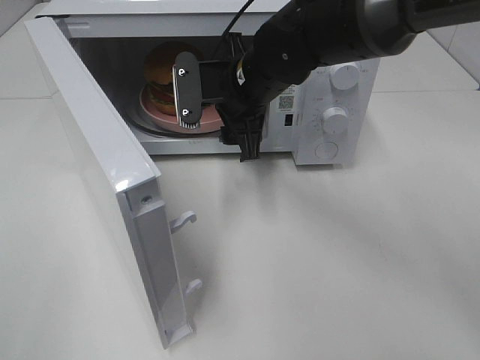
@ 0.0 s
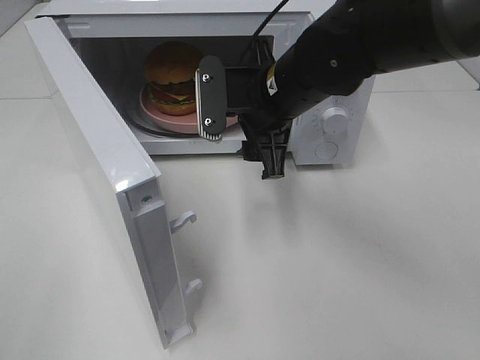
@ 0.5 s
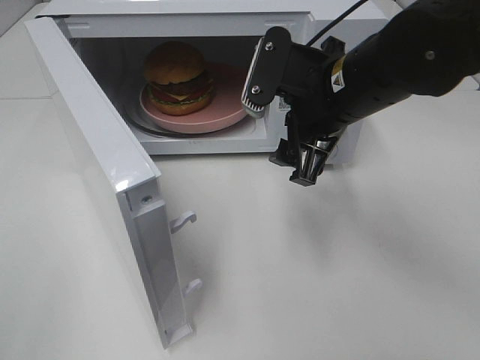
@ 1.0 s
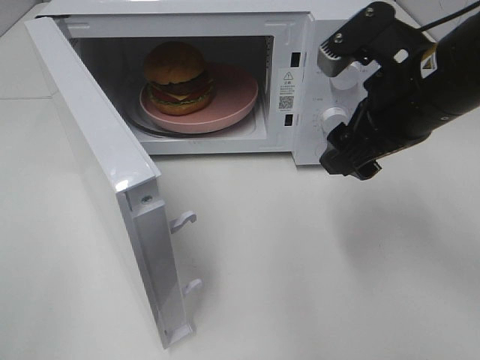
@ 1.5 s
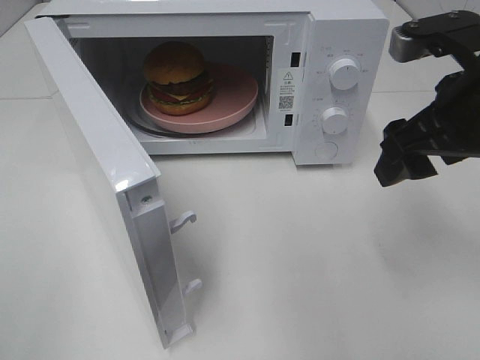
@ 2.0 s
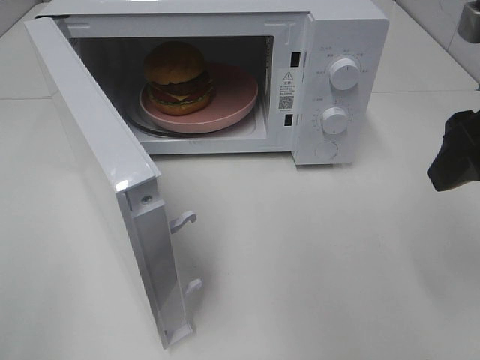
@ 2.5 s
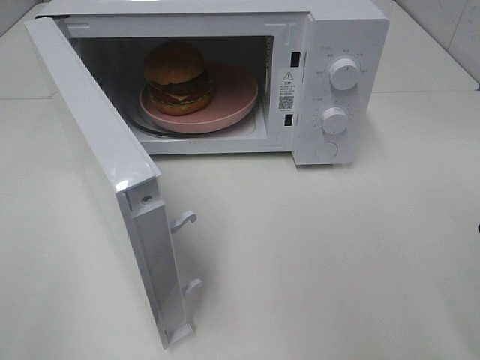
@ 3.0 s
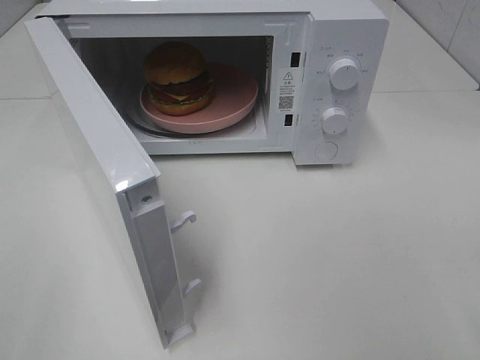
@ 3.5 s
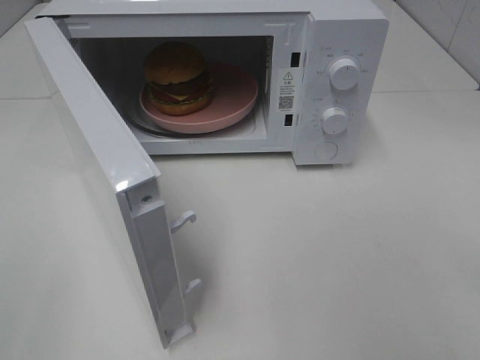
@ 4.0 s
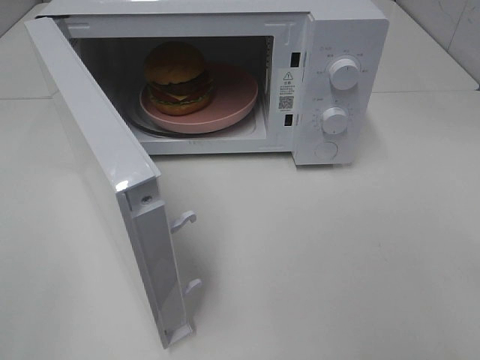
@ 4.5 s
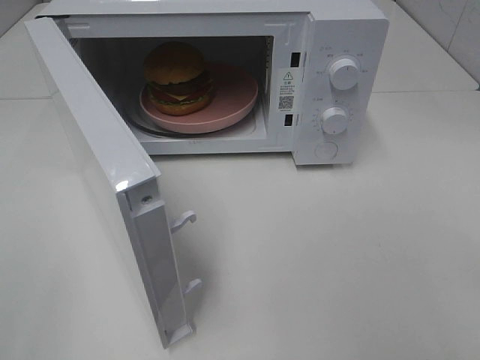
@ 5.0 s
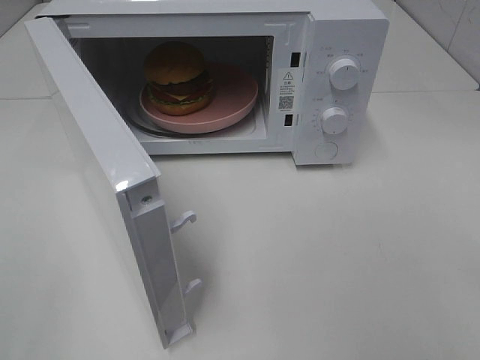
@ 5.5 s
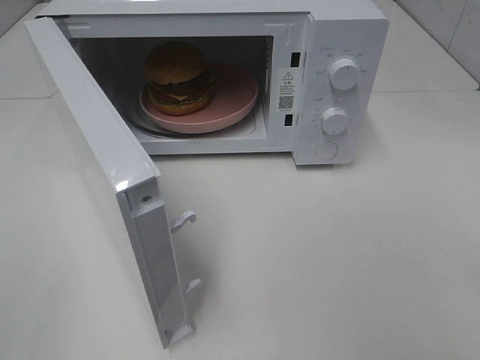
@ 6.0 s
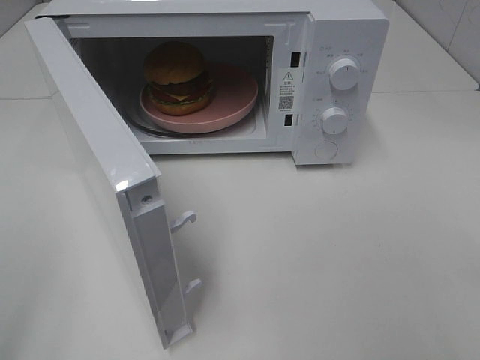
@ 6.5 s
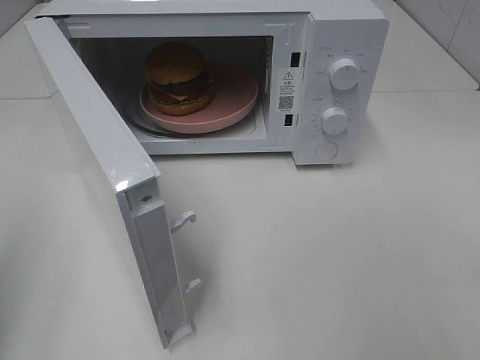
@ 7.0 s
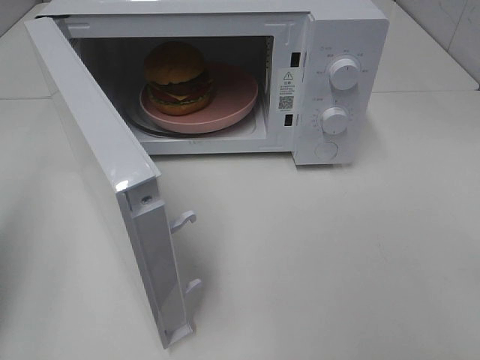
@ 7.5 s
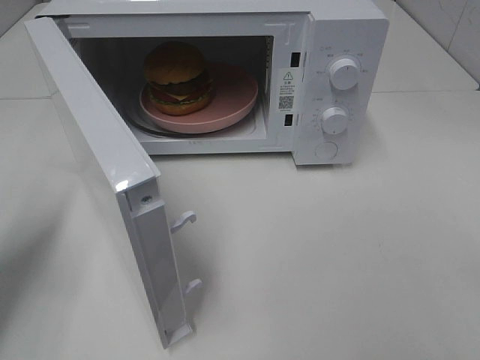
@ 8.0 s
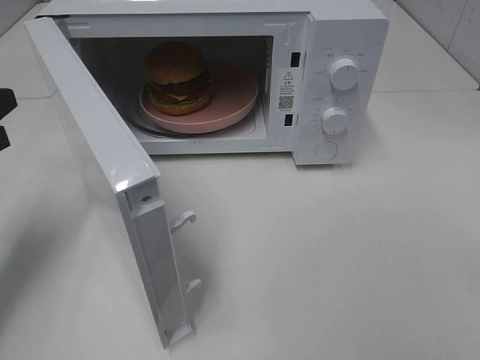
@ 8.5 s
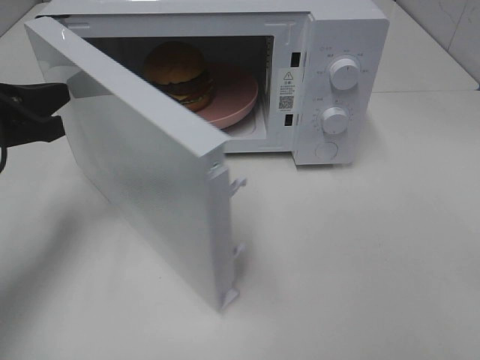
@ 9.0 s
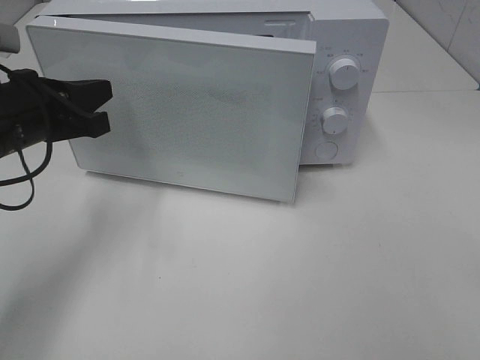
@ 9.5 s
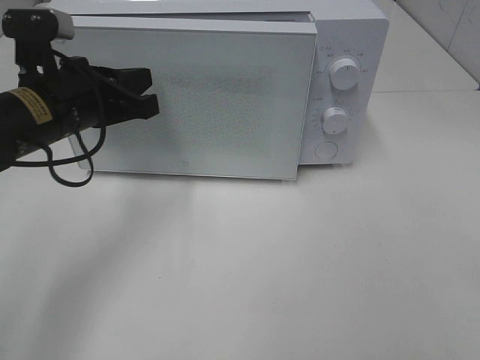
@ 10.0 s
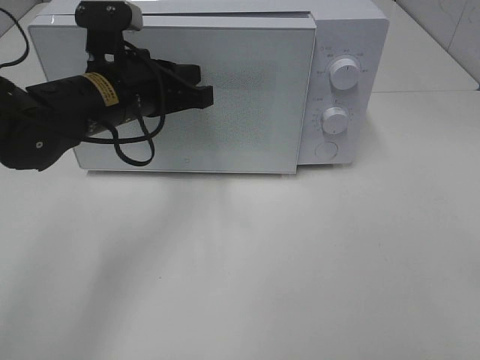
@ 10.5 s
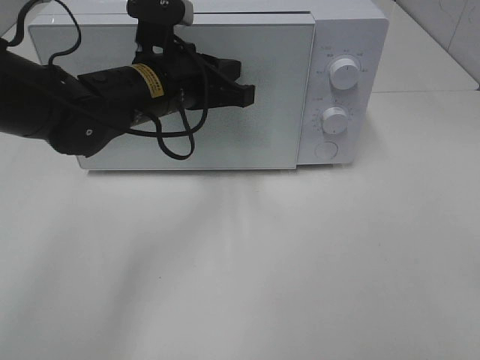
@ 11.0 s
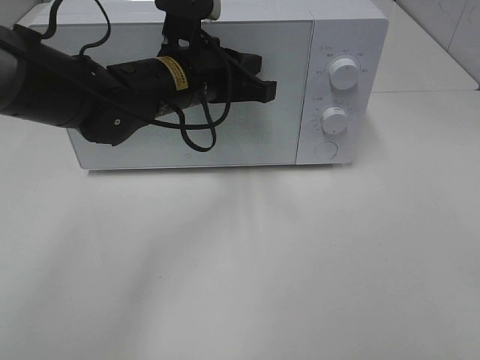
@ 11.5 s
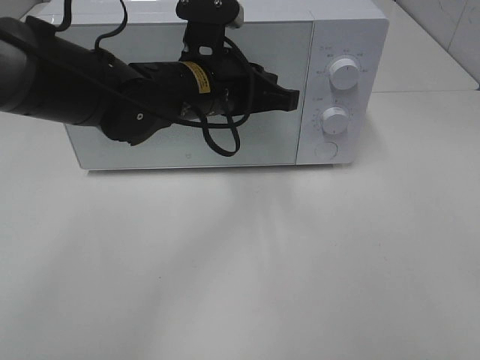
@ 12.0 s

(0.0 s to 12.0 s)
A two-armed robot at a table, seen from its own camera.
Task of the whole recording: Heat the burger.
Step, 0.0 s - 11.0 s: Left hand: close the microwave door.
0.0 s - 2.0 s: The right gripper goes roughly 25 cm to the right and backward.
2.0 s - 4.0 s: The right gripper is displaced backward by some 25 cm.
6.0 s - 8.0 s: The left gripper moves forward, about 20 cm, and closes.
8.0 s - 10.0 s: The left gripper heads to the right and forward, covering approximately 15 cm.
10.0 s - 12.0 s: The left gripper goes roughly 15 cm to the right.

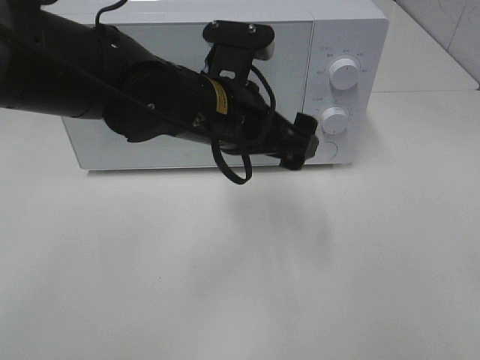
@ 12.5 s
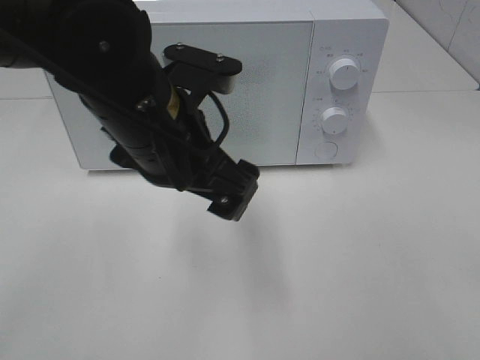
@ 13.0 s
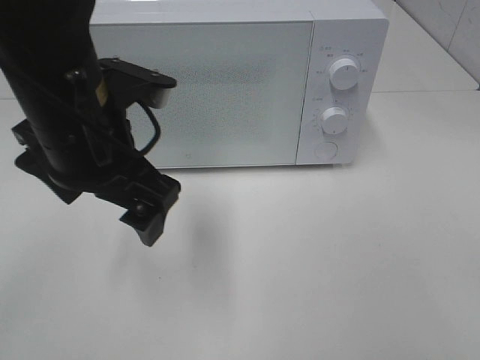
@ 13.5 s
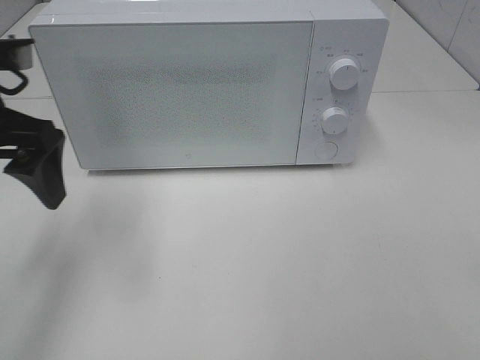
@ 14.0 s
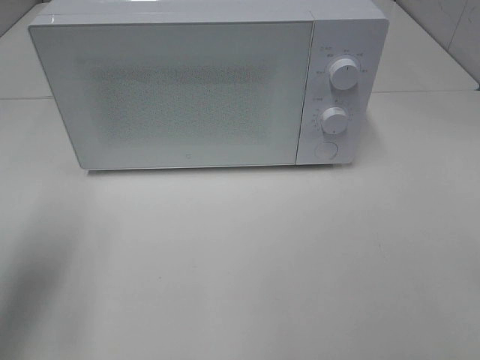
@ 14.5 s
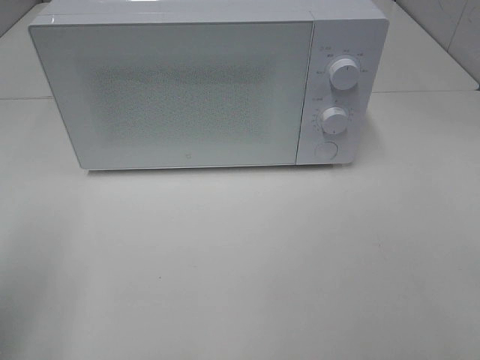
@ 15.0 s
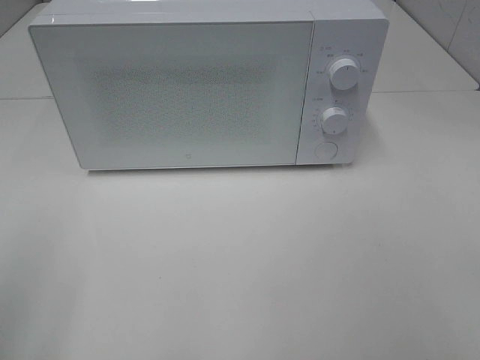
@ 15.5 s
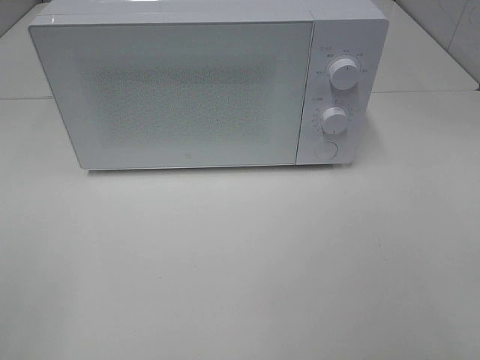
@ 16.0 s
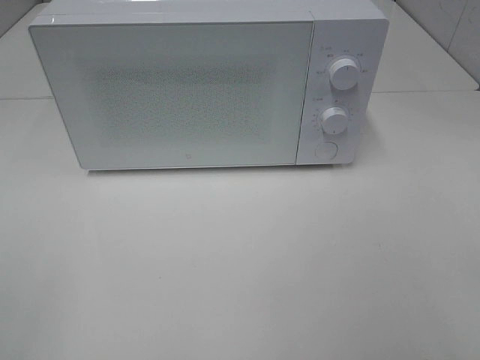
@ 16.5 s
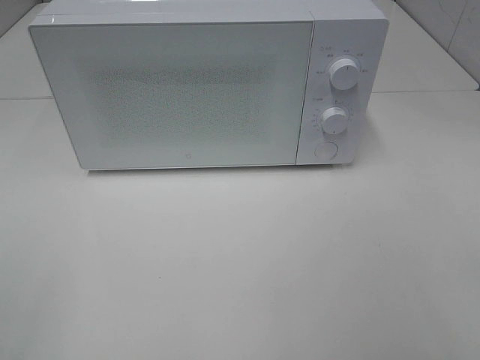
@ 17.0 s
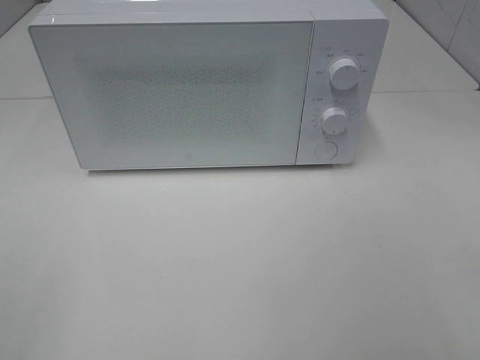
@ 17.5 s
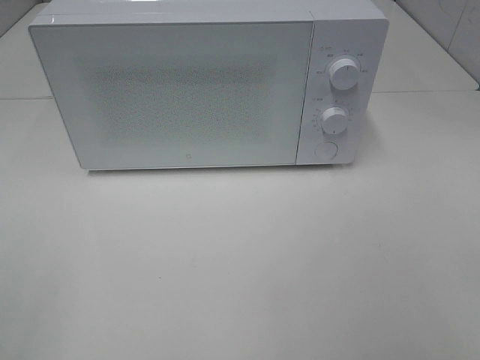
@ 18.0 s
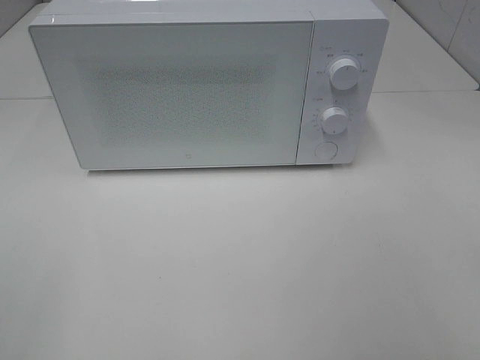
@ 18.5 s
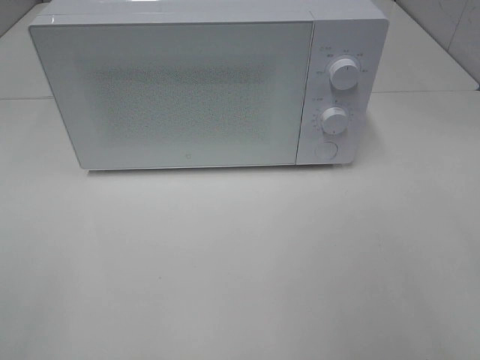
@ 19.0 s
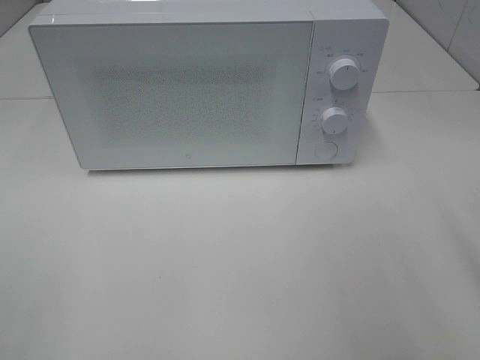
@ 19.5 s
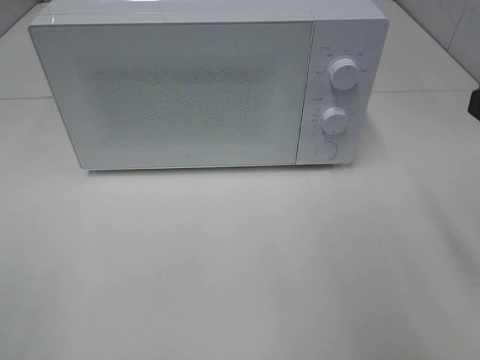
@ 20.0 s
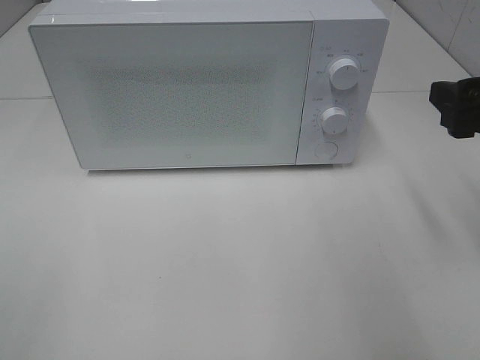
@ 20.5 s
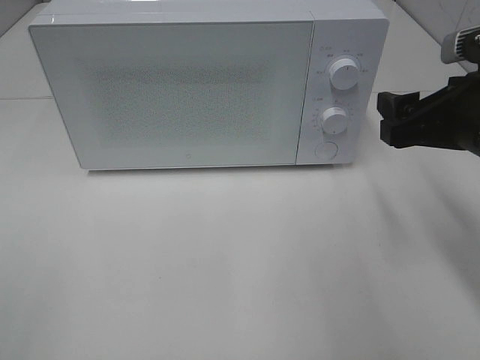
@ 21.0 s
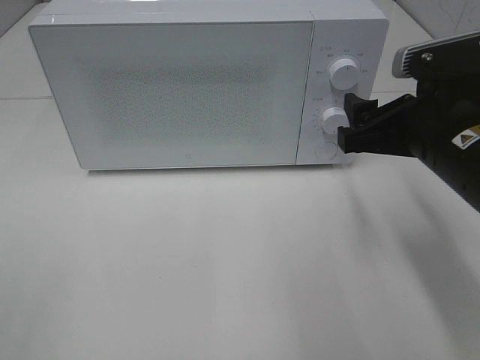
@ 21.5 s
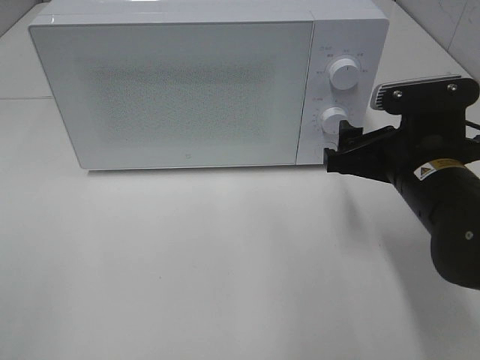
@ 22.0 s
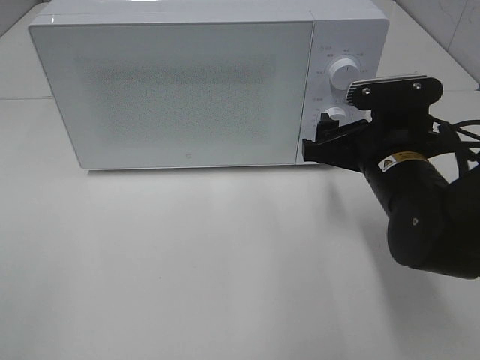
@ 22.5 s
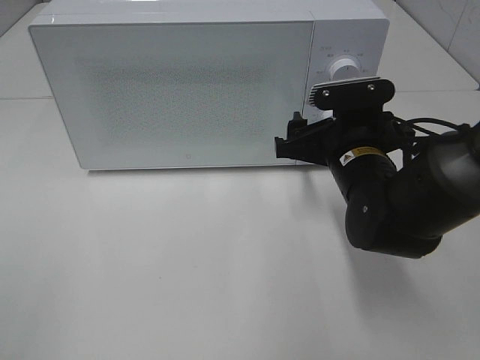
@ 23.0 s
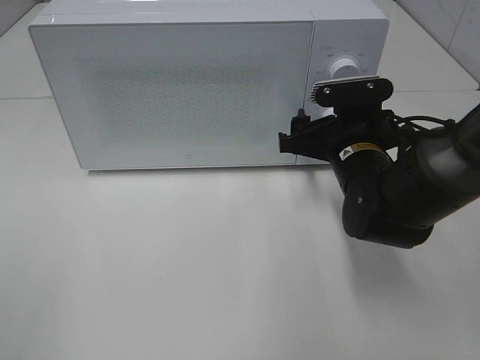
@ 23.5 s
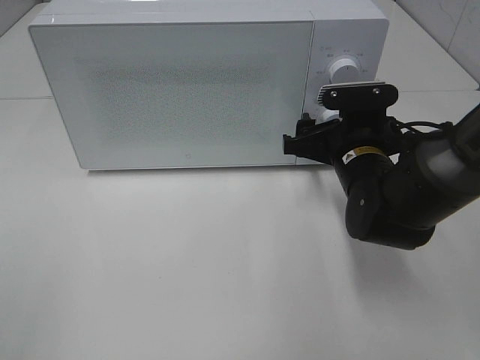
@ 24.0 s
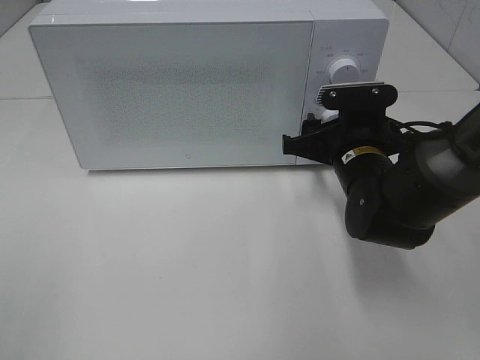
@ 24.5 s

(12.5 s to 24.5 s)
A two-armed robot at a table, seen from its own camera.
Task of the whole recording: Heat the burger.
12.5 s - 14.5 s: The left gripper travels to the left by some 25 cm.
14.5 s - 16.5 s: The left gripper moves backward, some 20 cm.
18.5 s - 20.5 s: The right gripper heads forward, covering about 20 cm.
20.5 s - 22.5 s: The right gripper heads to the left and downward, covering roughly 15 cm.
22.5 s - 24.5 s: The right gripper is displaced forward by some 5 cm.

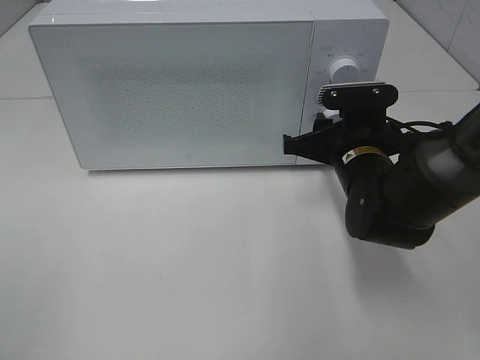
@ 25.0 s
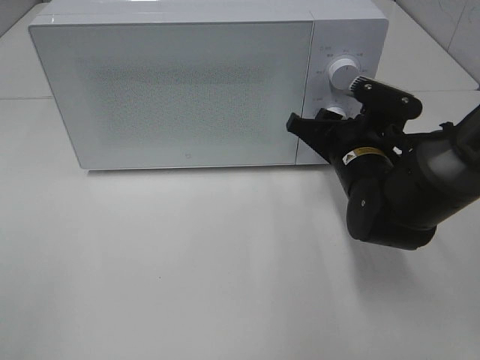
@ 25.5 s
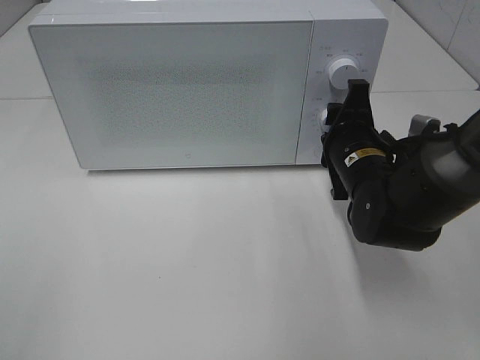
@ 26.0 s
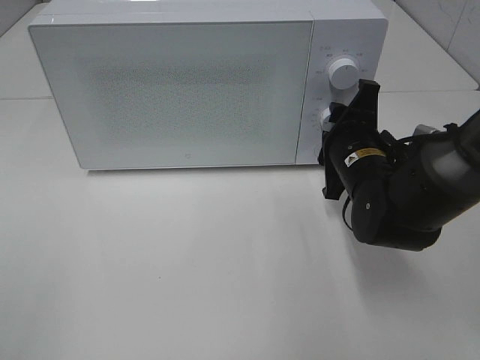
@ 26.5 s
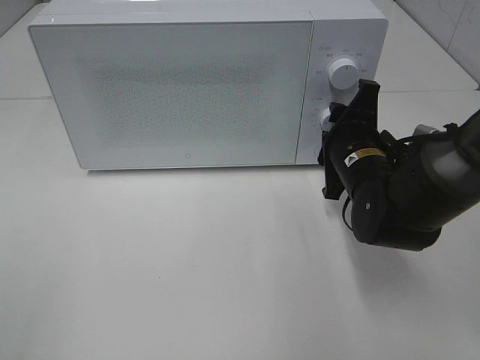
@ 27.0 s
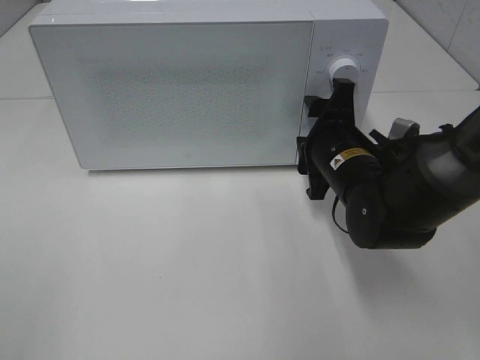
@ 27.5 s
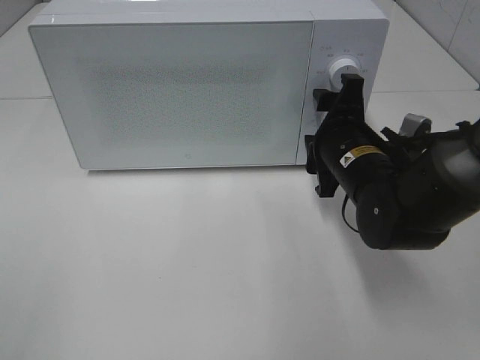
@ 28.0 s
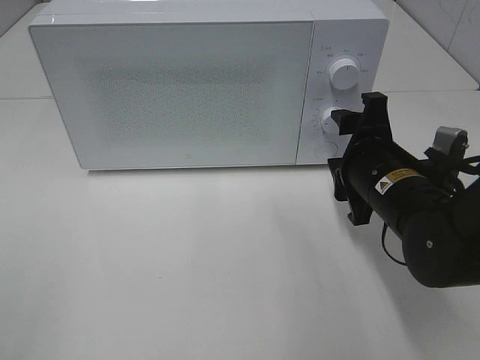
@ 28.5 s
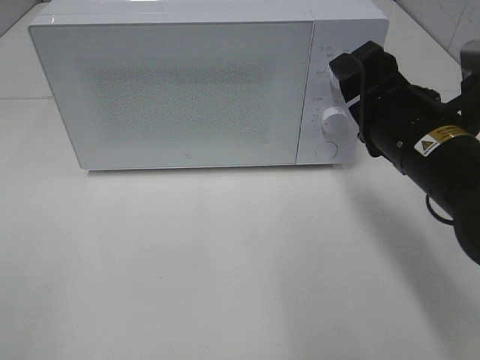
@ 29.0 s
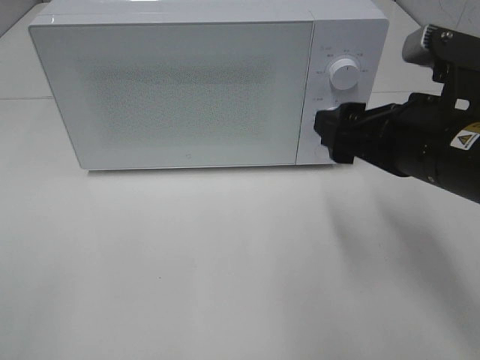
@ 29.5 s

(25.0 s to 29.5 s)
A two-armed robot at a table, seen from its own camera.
Task of the whole recording: Heat the burger.
Step, 25.0 s - 27.0 s: Right hand: twist timer button.
27.0 s - 29.5 s: The right gripper goes about 15 cm backward and upward, and opens up.
